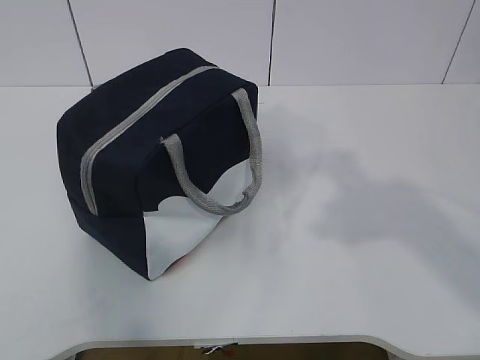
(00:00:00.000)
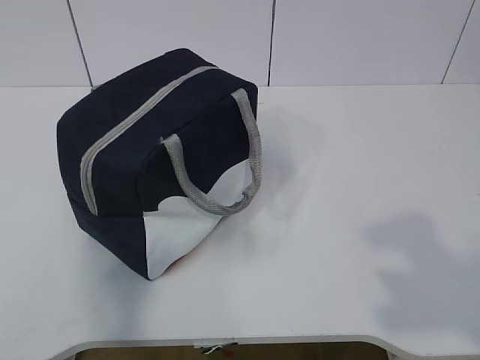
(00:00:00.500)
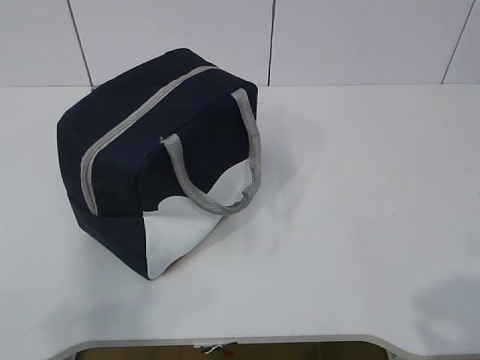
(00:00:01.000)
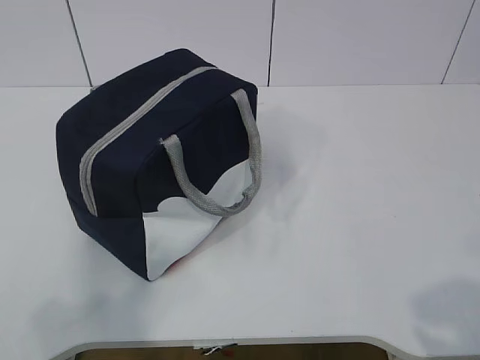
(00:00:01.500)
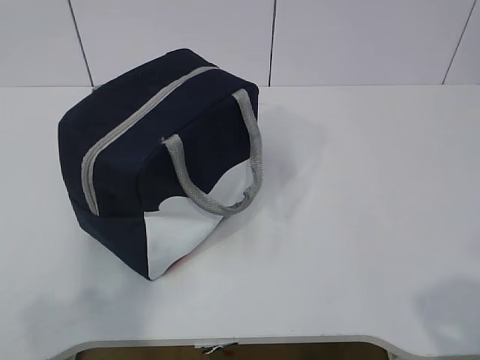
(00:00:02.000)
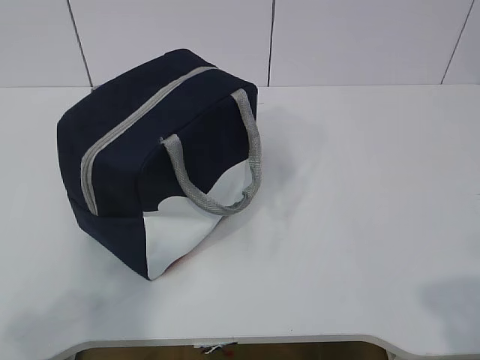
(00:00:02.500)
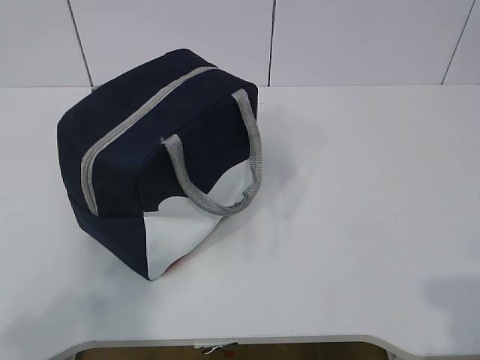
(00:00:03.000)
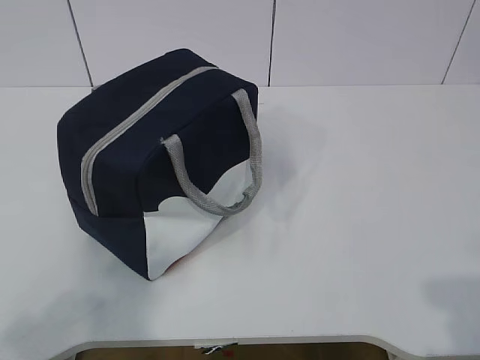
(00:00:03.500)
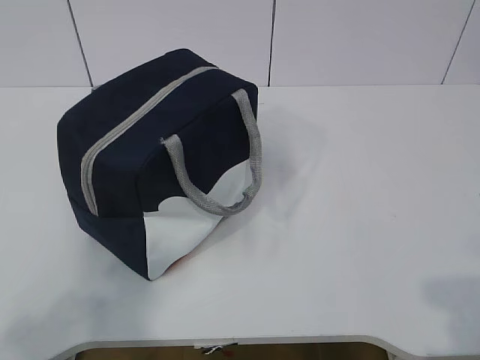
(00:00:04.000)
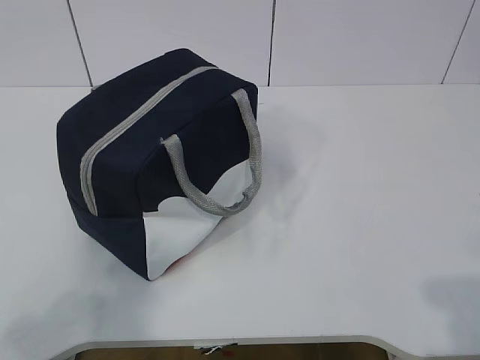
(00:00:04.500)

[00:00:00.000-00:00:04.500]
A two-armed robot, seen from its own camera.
00:00:00.000 to 00:00:02.000: The right gripper shifts approximately 20 cm backward, downward and to the right, while the left gripper shifts about 15 cm downward, and closes its fingers.

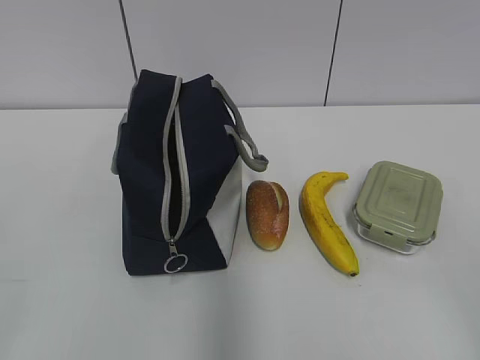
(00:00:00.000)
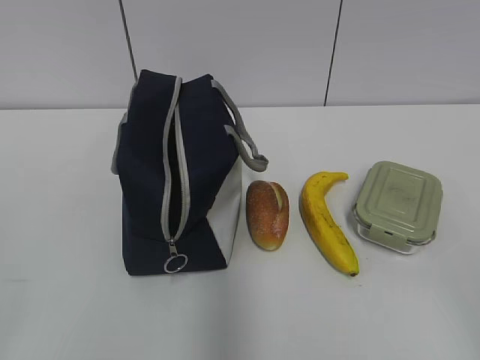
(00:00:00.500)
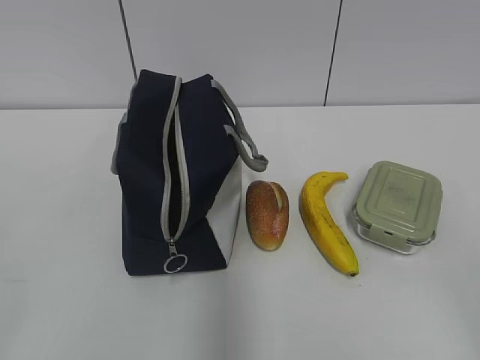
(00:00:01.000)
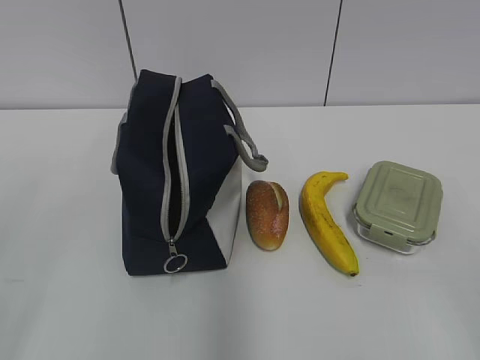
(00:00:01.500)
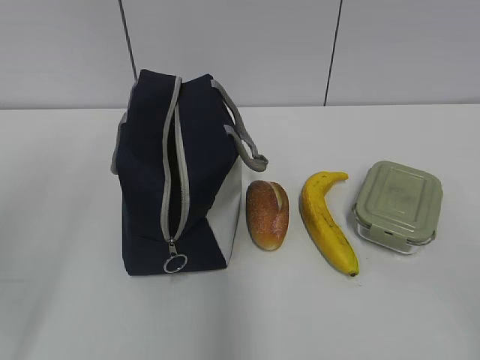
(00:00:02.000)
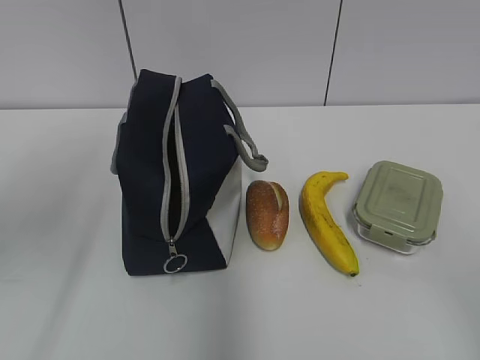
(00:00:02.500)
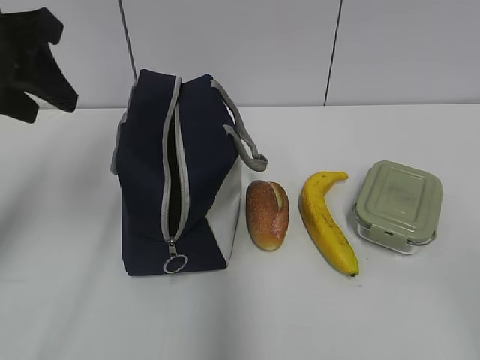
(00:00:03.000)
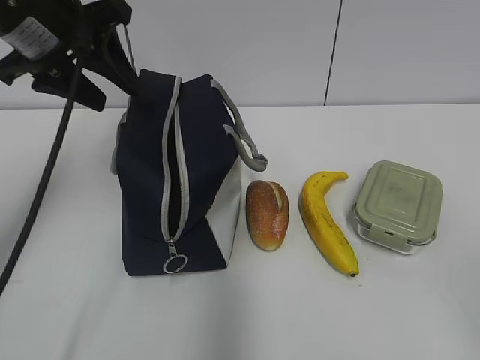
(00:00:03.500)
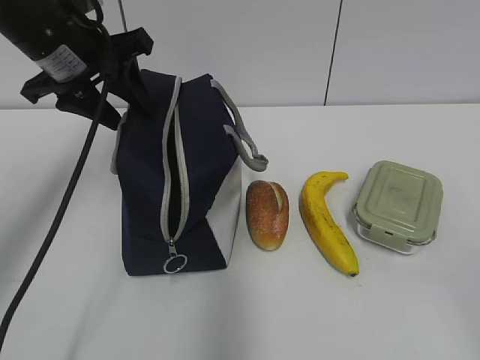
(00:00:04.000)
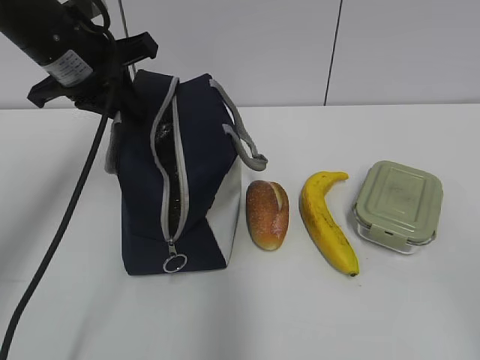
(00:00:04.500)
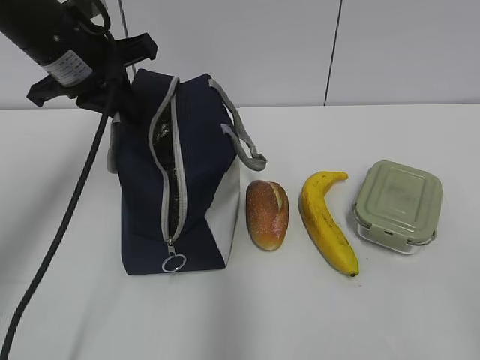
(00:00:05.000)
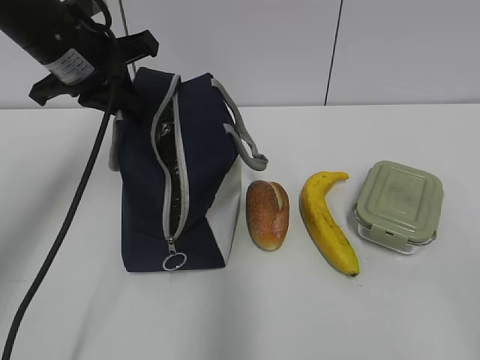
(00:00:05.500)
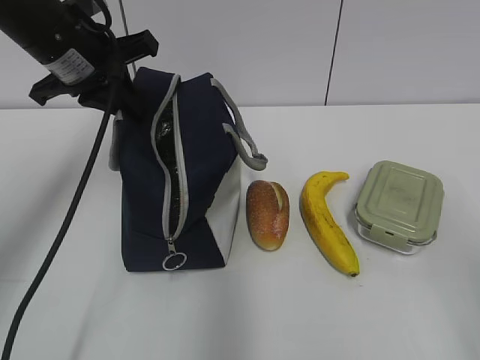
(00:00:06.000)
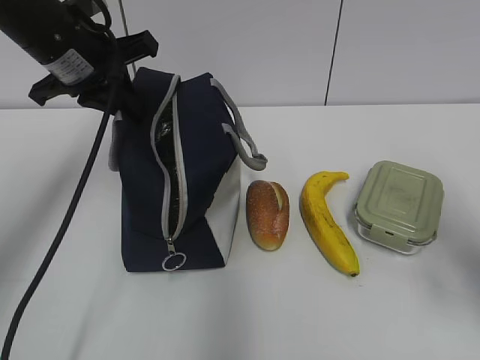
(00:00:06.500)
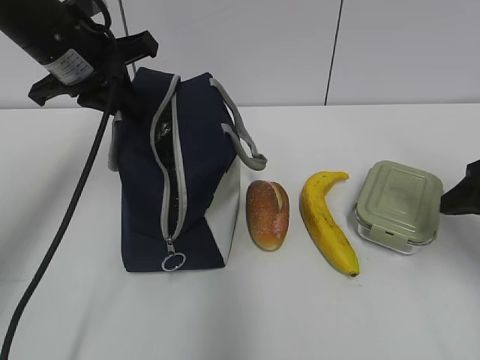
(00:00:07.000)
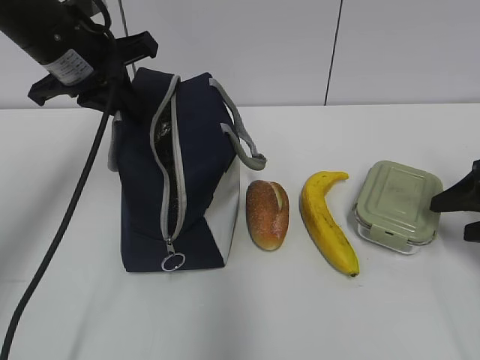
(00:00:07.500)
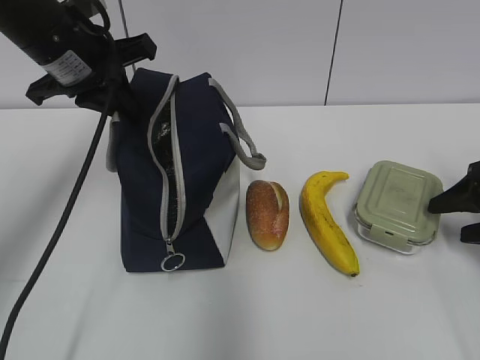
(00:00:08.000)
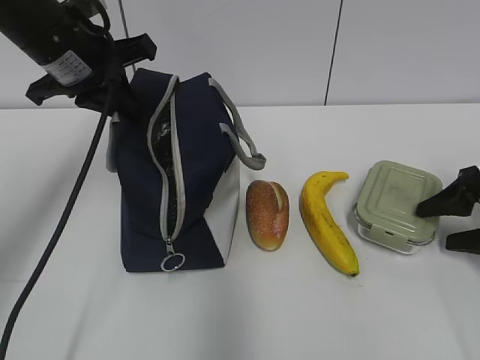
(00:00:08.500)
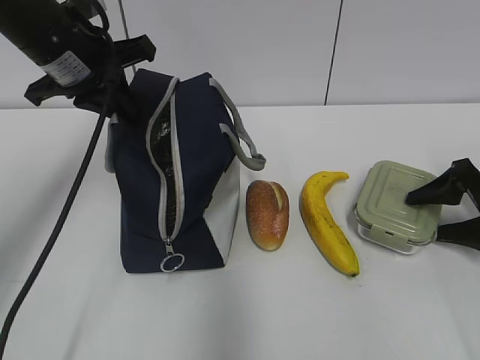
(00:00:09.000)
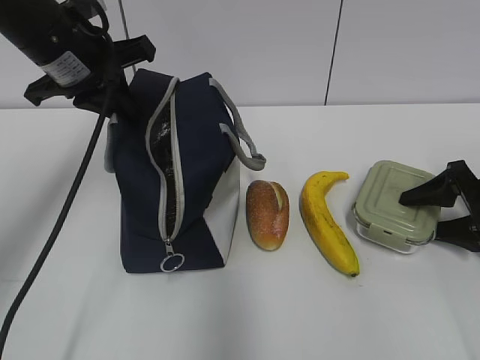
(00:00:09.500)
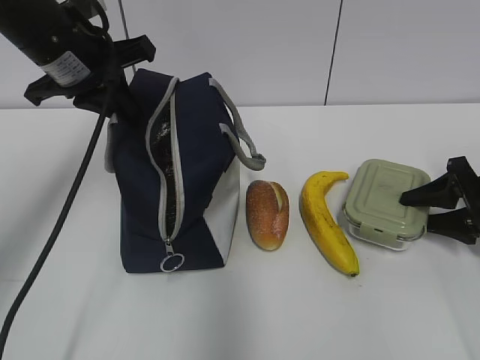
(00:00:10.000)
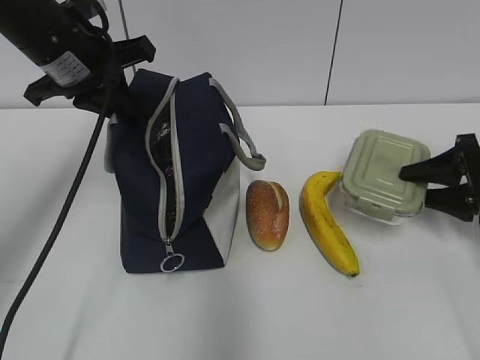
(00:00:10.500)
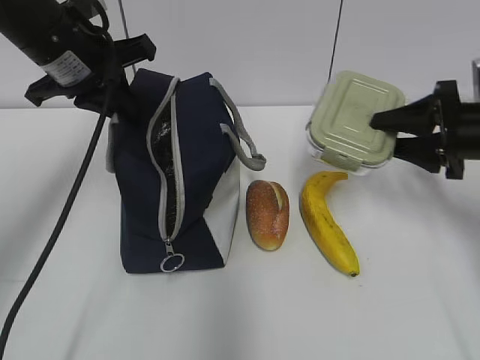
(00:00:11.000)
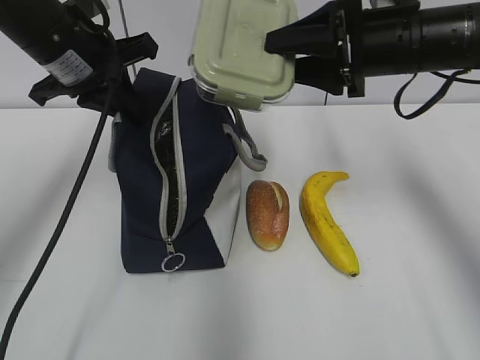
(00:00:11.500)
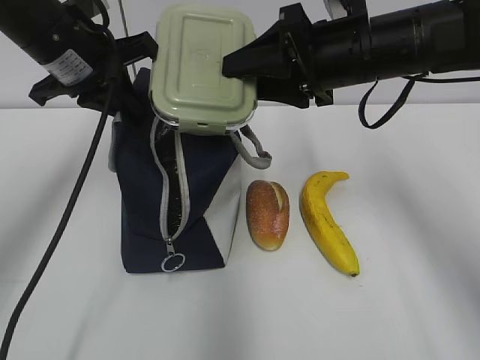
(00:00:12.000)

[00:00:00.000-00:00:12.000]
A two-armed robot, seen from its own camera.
Step, 00:00:00.000 to 00:00:09.000: Grab the lunch box with your right hand.
00:00:02.000 to 00:00:04.000: The left gripper goes about 30 cm forward and to the right.
00:00:04.000 to 00:00:06.000: The right gripper is displaced forward by about 5 cm. Meanwhile the left gripper closes.
00:00:06.000 to 00:00:08.000: The right gripper heads forward and downward, covering about 25 cm.
00:00:08.000 to 00:00:10.000: The right gripper shifts by roughly 5 cm.
00:00:10.000 to 00:00:12.000: The right gripper is displaced to the left and upward by approximately 25 cm.

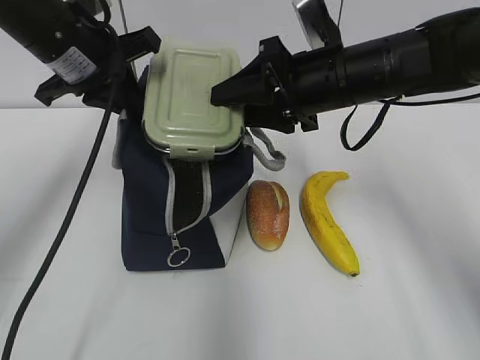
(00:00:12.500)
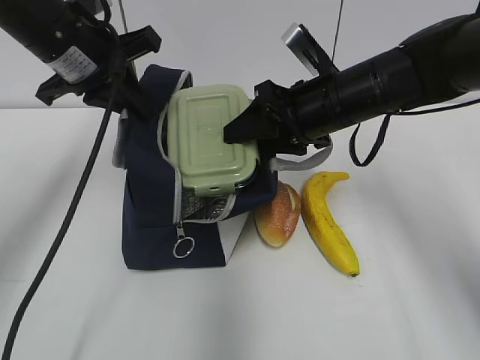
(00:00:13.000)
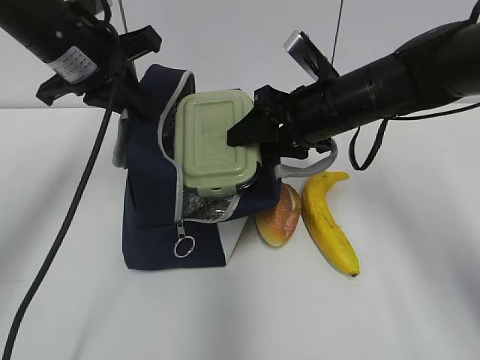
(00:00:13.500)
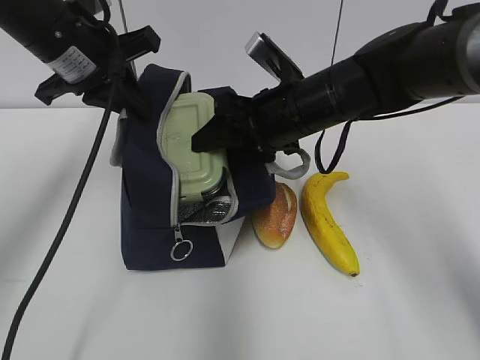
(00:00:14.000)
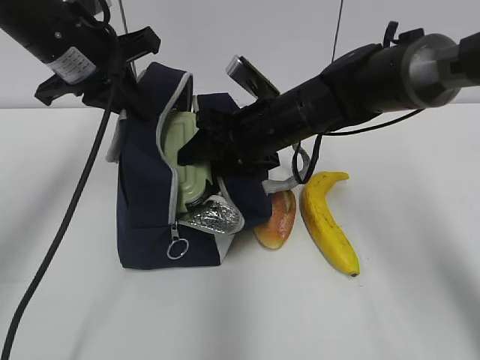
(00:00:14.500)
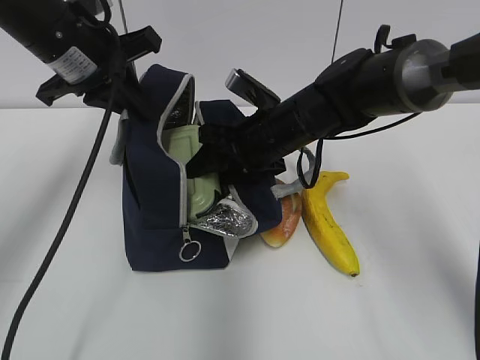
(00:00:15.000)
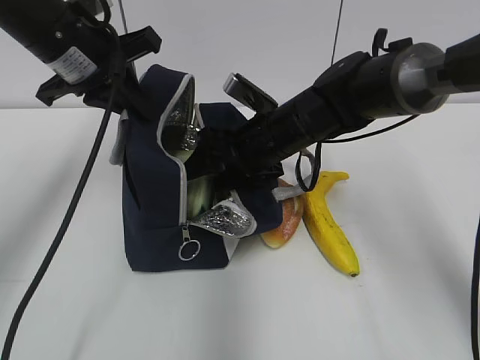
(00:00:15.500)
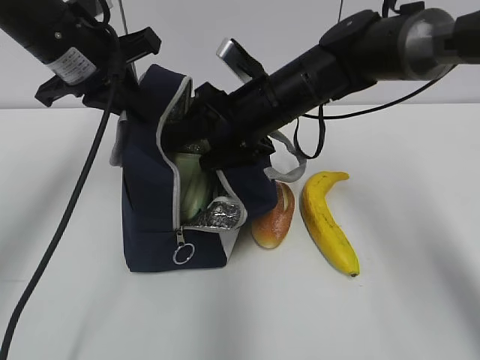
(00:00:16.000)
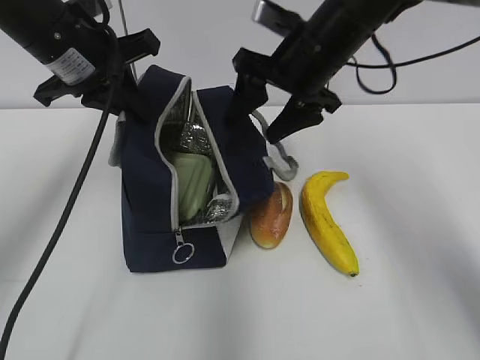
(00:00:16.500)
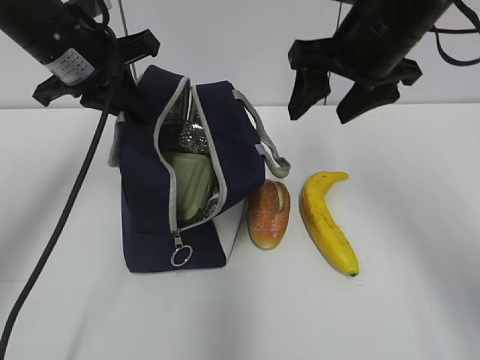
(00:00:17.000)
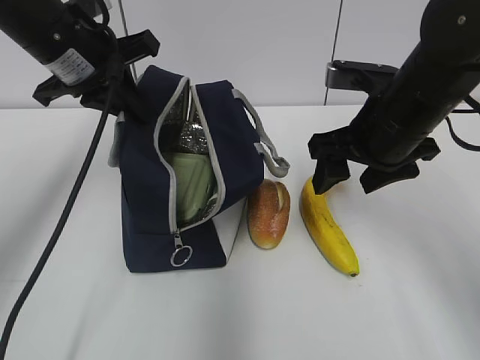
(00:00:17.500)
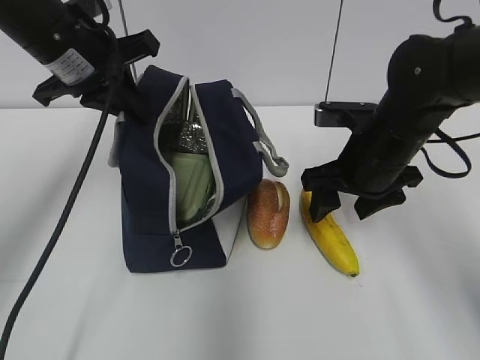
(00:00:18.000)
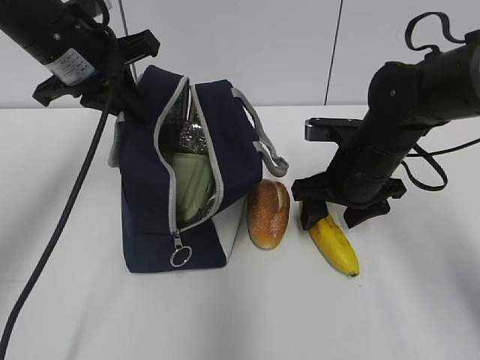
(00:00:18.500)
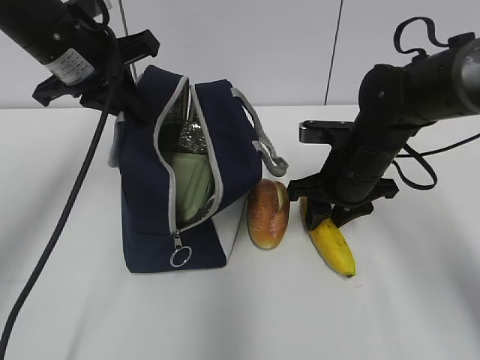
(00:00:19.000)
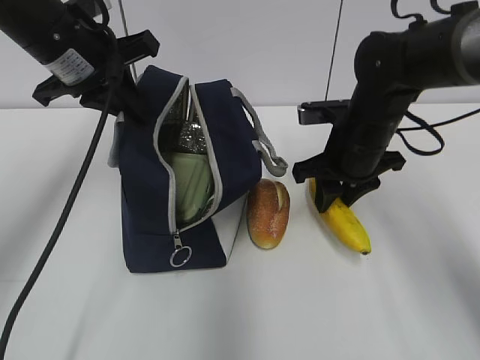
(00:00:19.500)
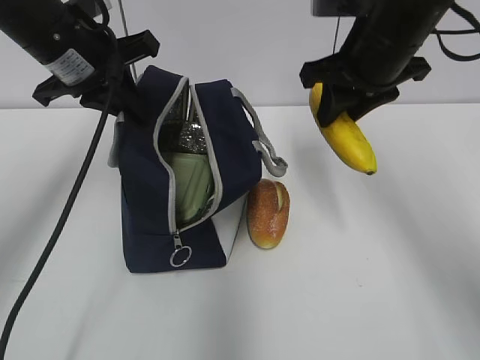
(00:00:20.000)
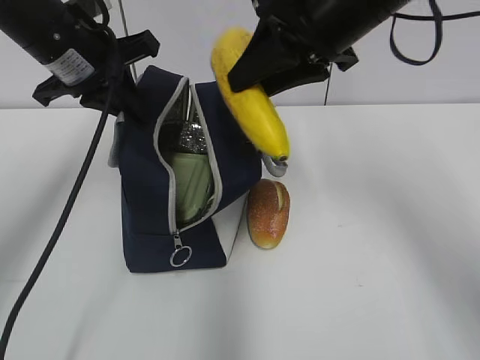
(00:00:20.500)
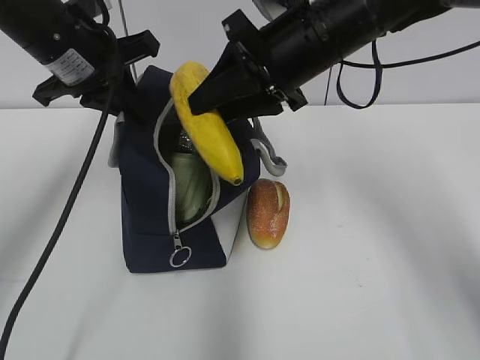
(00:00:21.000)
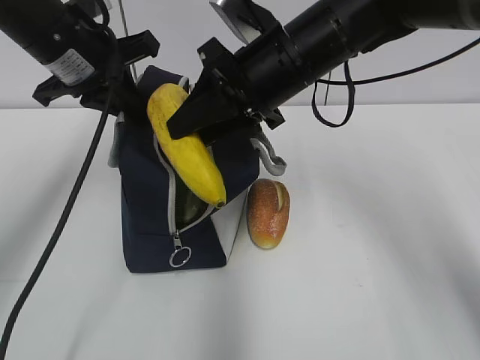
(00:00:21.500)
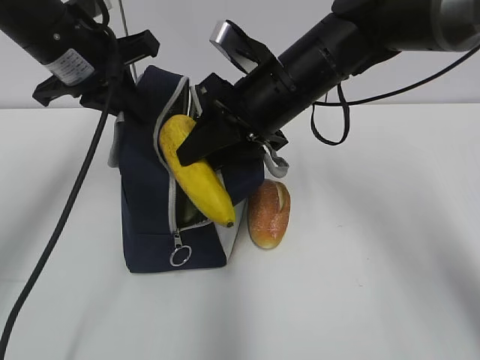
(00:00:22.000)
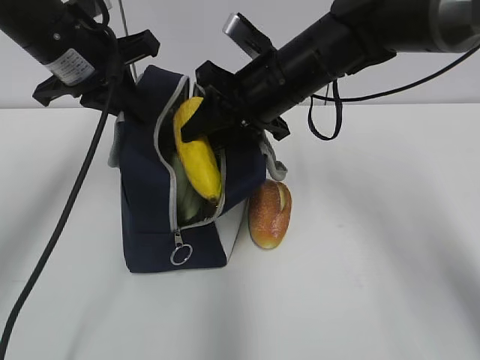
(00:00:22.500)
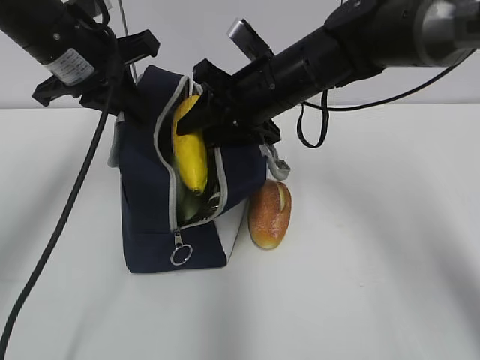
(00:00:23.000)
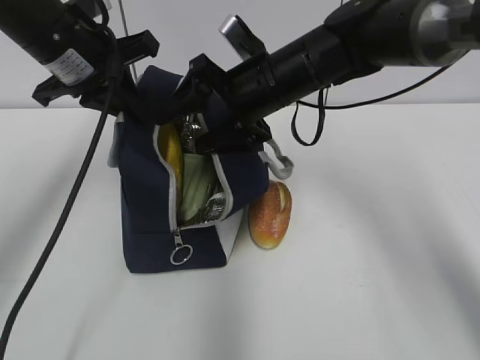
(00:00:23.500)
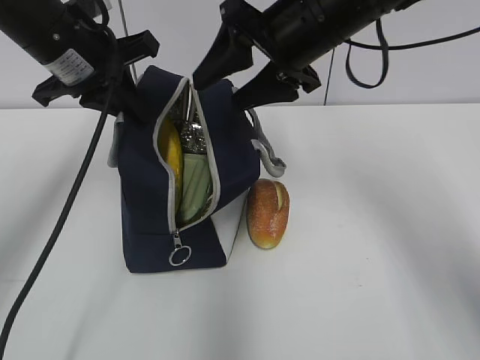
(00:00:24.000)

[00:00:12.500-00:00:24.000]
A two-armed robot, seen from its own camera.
Step, 00:00:13.000 to 00:00:16.500: Place it into the bag with your right hand.
Step, 00:00:17.000 to 00:00:19.000: Grab the banana with your right hand.
Step, 00:00:19.500 to 00:00:23.500: Place it into the bag with your right hand.
00:00:12.500 to 00:00:14.500: The right gripper moves downward and to the left, some 10 cm.
00:00:14.500 to 00:00:16.500: The right gripper travels upward by about 10 cm.
00:00:16.500 to 00:00:18.500: The right gripper is displaced downward and to the right by some 15 cm.
00:00:18.500 to 00:00:20.000: The right gripper goes about 15 cm upward, and closes its fingers.
00:00:20.000 to 00:00:22.000: The right gripper travels to the left by roughly 10 cm.
00:00:22.000 to 00:00:24.000: The right gripper heads upward, covering roughly 5 cm, and opens.
